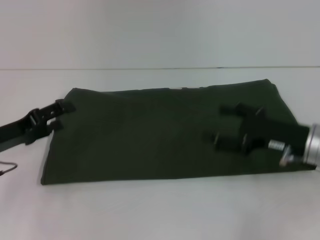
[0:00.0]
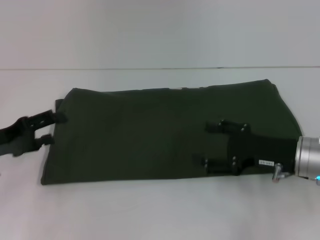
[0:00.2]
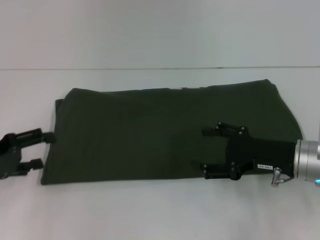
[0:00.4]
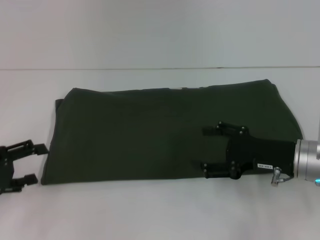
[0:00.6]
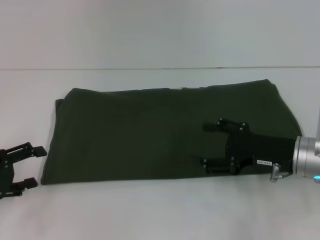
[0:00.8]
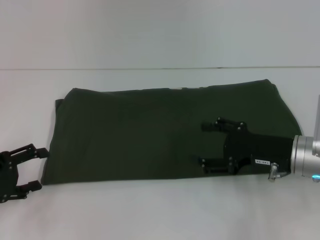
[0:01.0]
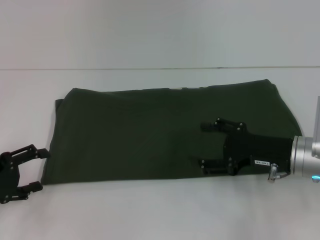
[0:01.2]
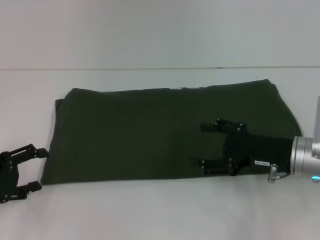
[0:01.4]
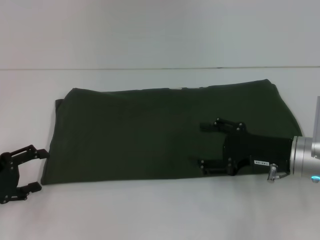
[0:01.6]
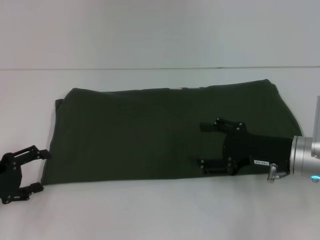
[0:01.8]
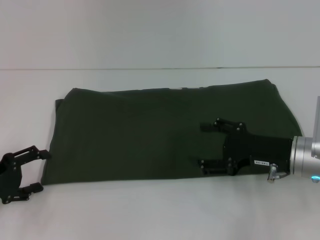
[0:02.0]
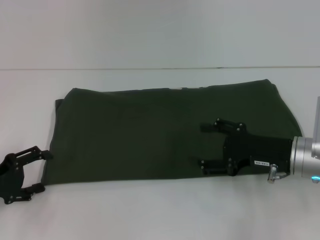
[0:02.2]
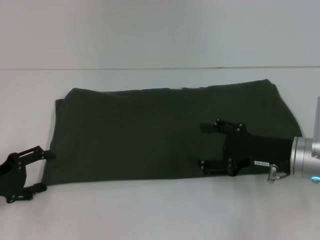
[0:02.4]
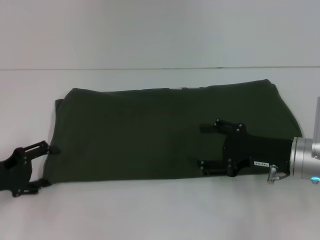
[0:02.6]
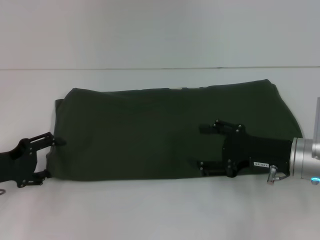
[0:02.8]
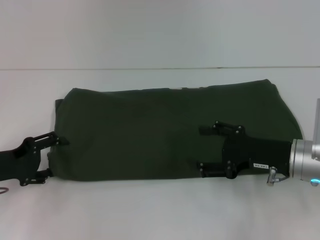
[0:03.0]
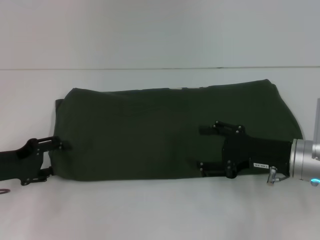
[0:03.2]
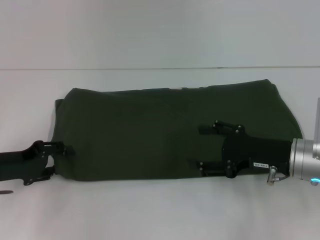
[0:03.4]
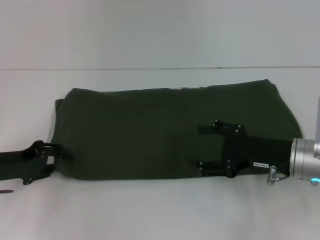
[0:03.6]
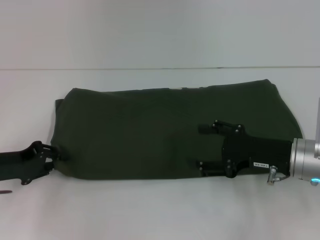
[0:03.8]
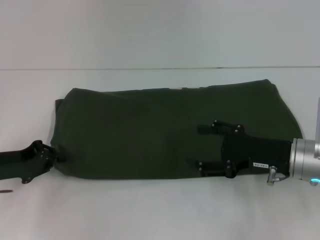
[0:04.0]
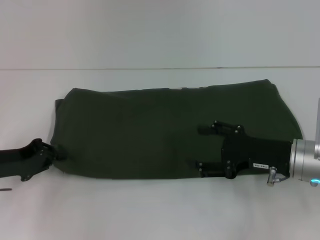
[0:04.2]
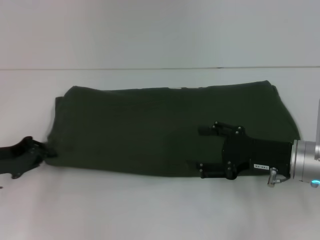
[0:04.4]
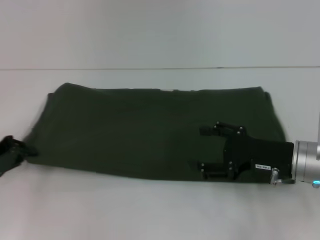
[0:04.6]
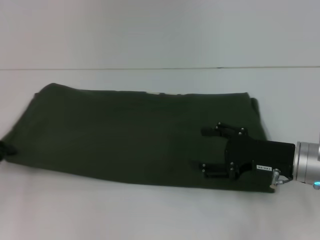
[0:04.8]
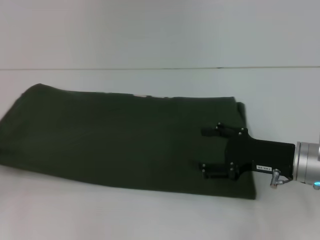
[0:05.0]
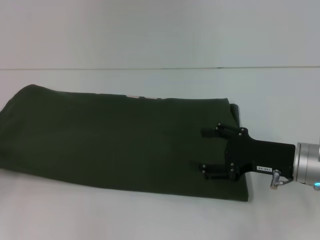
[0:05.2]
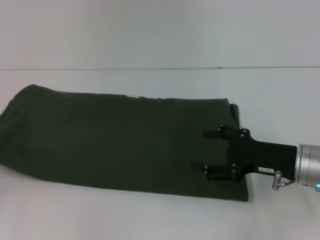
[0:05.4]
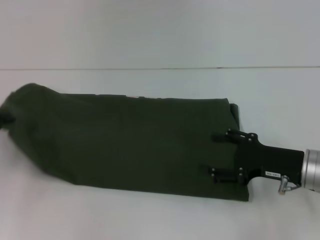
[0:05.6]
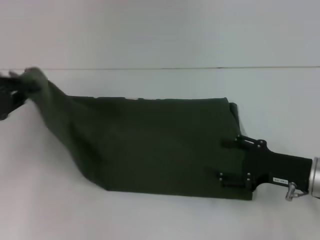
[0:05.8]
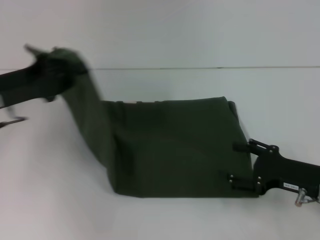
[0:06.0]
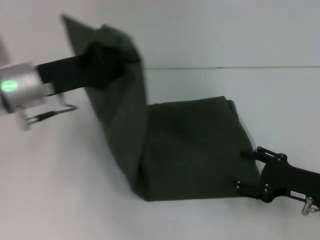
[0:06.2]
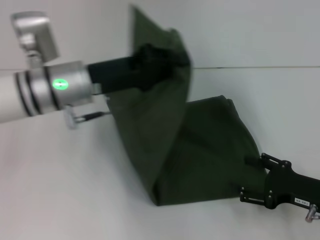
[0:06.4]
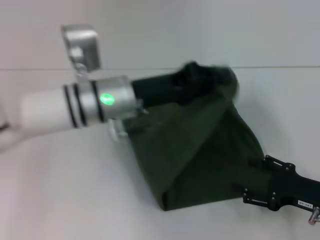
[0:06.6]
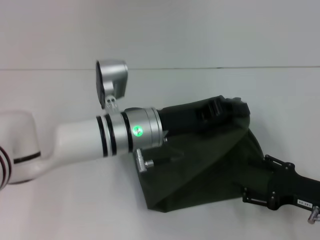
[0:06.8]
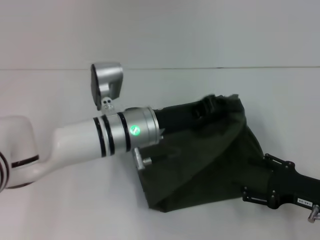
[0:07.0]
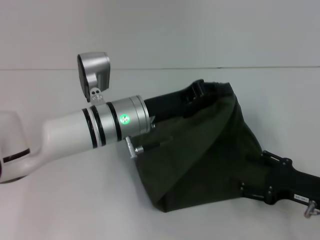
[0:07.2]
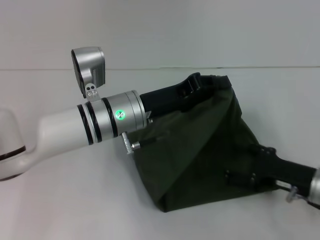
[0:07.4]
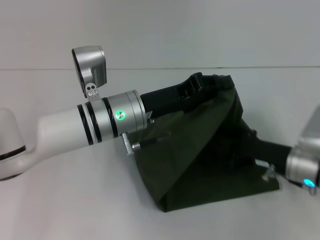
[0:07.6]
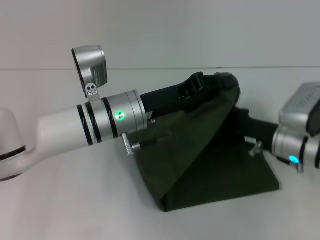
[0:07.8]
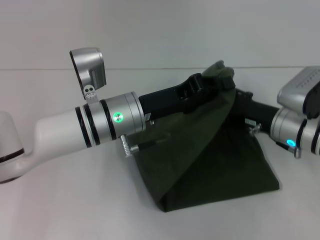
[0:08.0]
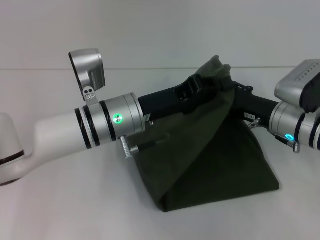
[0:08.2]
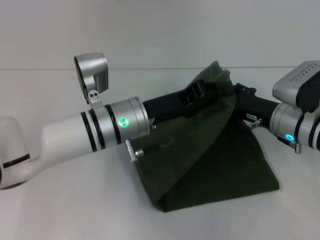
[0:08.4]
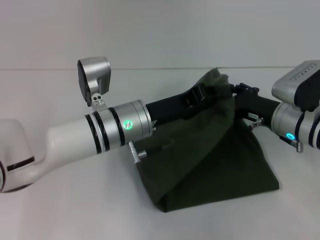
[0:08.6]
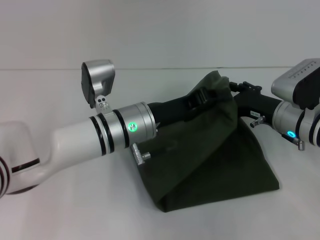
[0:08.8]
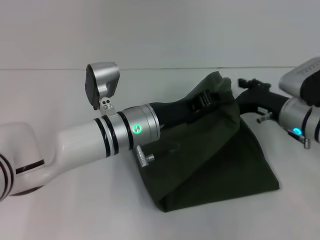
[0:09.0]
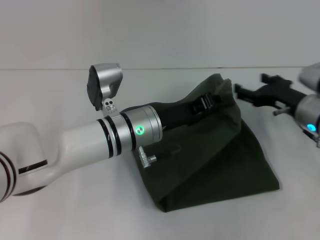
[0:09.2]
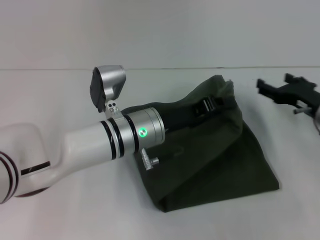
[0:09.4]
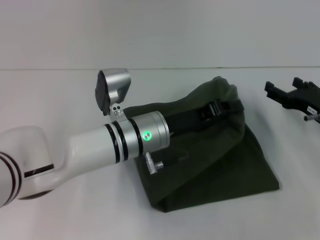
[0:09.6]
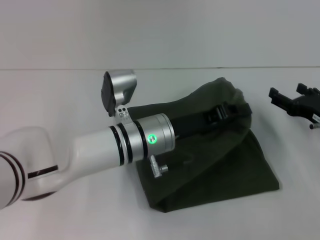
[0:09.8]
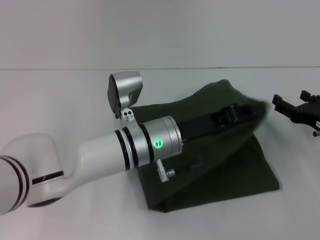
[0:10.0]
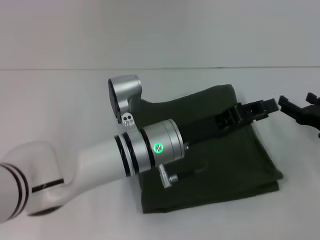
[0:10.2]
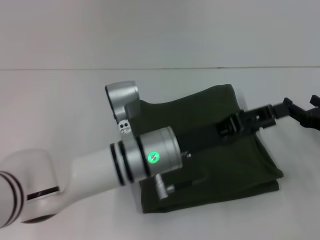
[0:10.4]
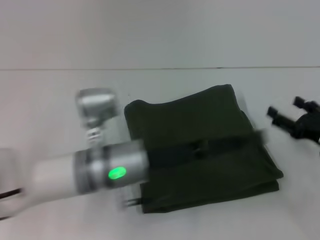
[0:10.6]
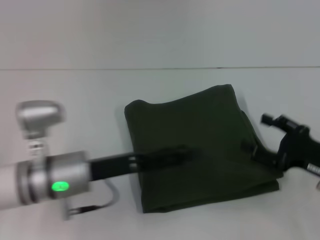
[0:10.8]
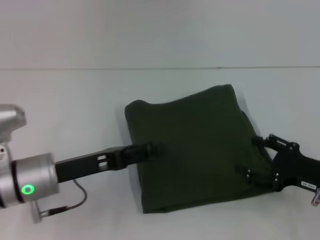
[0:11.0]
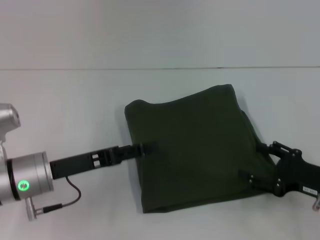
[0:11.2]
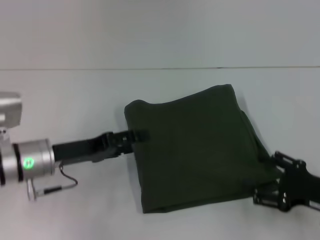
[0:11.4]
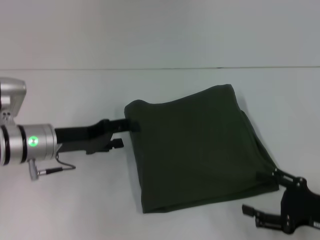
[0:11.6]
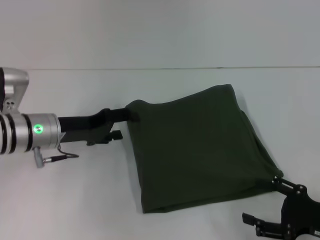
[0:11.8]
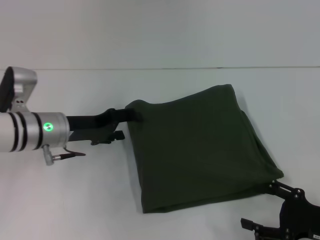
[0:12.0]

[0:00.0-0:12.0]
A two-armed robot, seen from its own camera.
Step, 0:00.0 to 0:10.0: Fold the clothes with your left hand.
0:00.0 to 0:01.6: The left gripper changes place by approximately 5 cm.
0:01.6 to 0:03.0: The grippers move only a little.
0:03.0 to 0:04.4: The left gripper closes.
0:04.4 to 0:06.0: The right gripper moves roughly 5 cm, while the left gripper heads upward, covering roughly 10 cm, and travels to the left and back again, approximately 10 cm each way.
0:06.0 to 0:07.6: The left gripper shifts roughly 20 cm to the right.
0:07.6 to 0:09.0: The right gripper travels forward by roughly 5 cm.
0:09.0 to 0:10.4: The right gripper goes roughly 10 cm to the right and backward. The left gripper ends up some 5 cm from where it was, and opens up.
0:10.4 to 0:12.0: The right gripper is displaced backward by some 10 cm. The left gripper goes roughly 15 cm to the left, and opens.

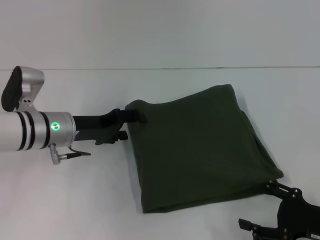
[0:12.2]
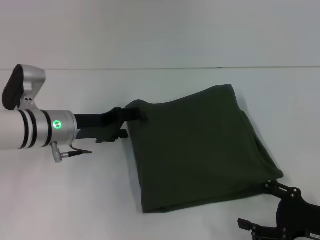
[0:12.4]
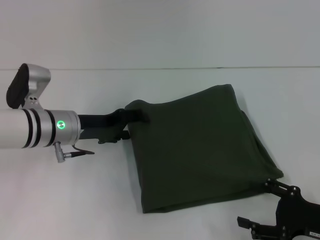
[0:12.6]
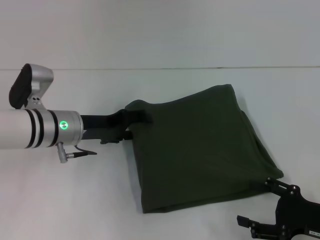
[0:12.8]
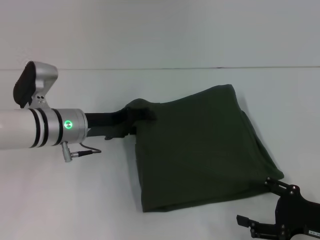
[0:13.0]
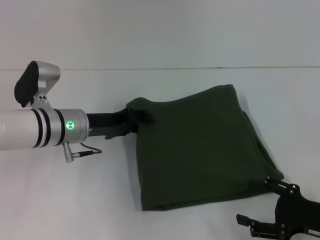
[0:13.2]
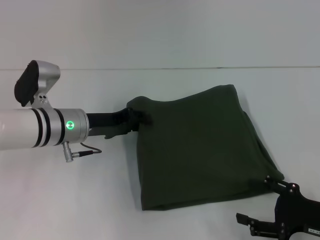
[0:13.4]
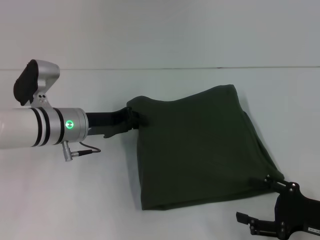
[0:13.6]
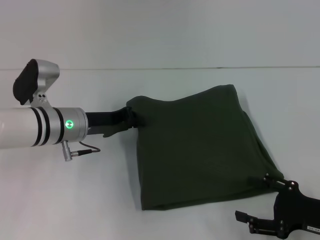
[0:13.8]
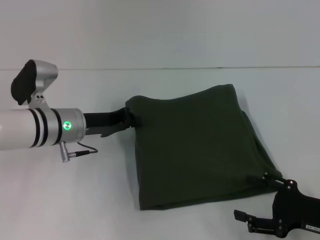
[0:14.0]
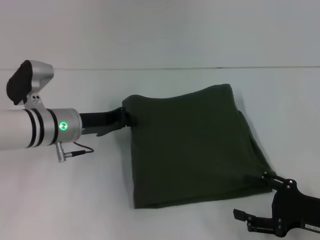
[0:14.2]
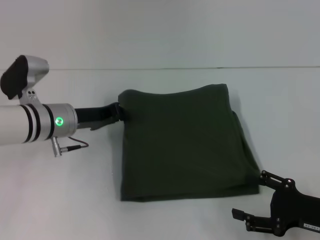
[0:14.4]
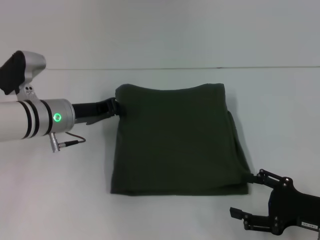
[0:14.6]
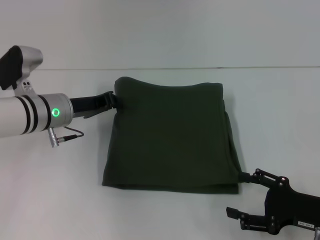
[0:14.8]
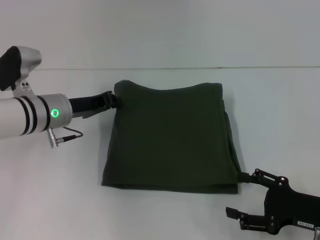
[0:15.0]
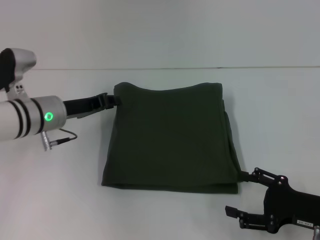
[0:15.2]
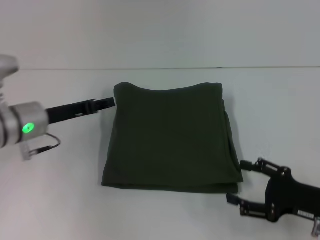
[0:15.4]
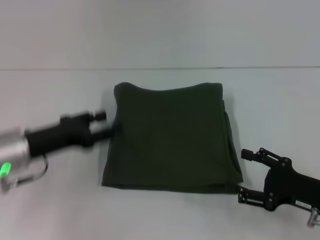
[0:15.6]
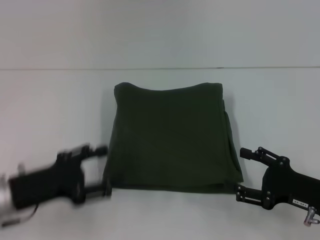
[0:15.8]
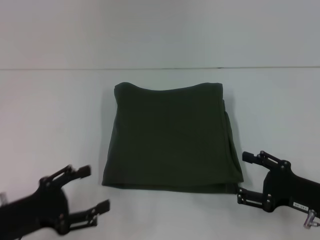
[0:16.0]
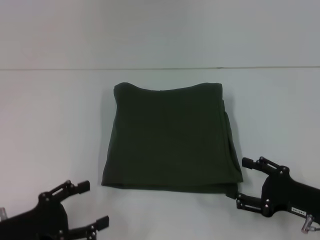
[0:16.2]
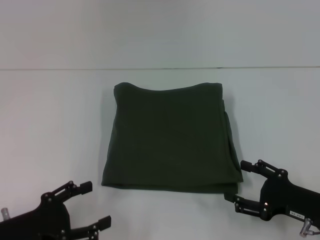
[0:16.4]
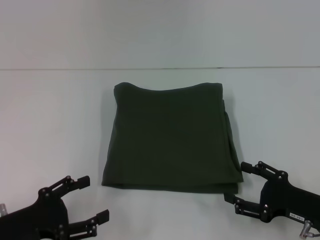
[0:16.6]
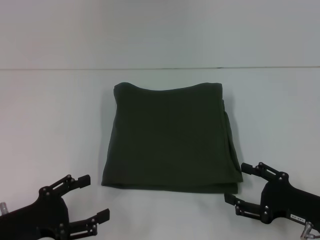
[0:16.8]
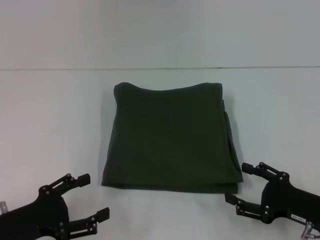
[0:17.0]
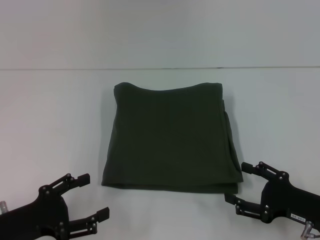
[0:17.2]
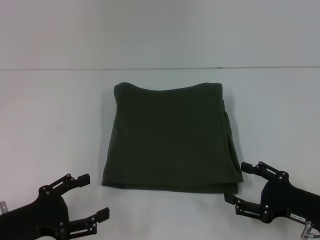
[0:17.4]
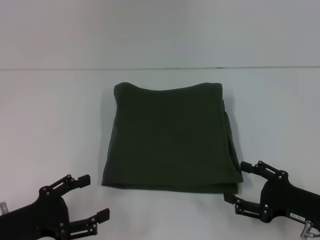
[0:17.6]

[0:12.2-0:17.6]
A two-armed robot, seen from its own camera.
0:12.2 to 0:13.6: The left gripper closes its fingers.
0:13.6 to 0:15.0: The left gripper closes up.
0:15.0 to 0:16.2: The left gripper travels backward by some 20 cm, and opens its fingers.
0:16.2 to 0:17.6: Both grippers stay about where they are.
